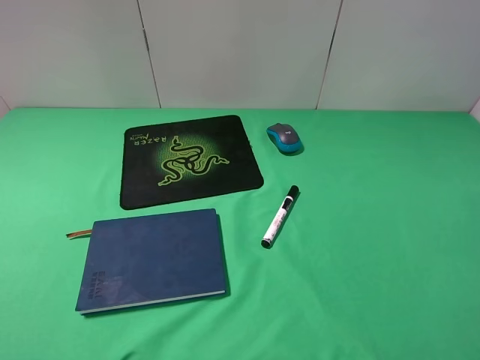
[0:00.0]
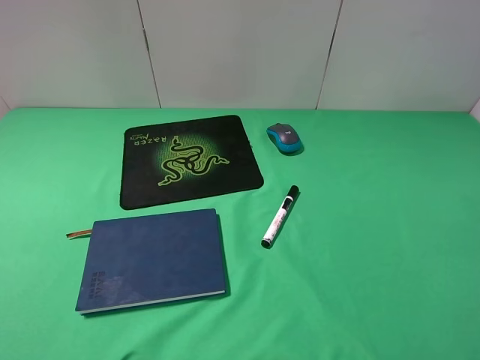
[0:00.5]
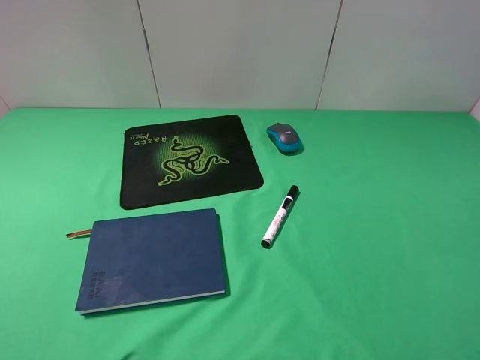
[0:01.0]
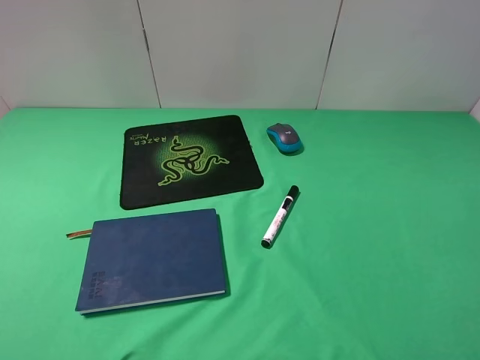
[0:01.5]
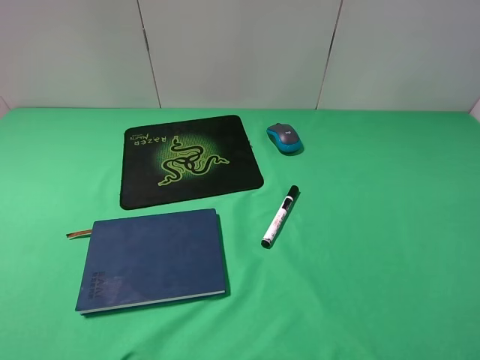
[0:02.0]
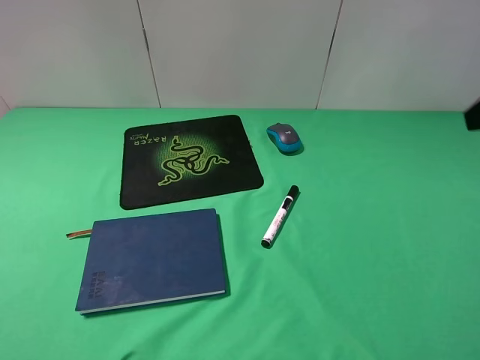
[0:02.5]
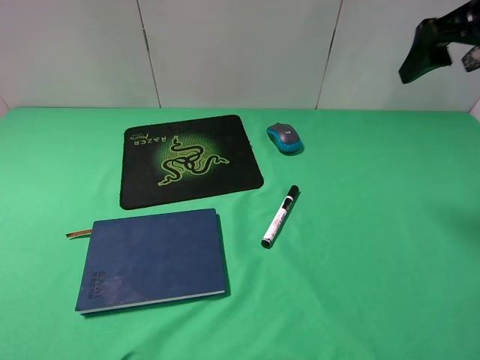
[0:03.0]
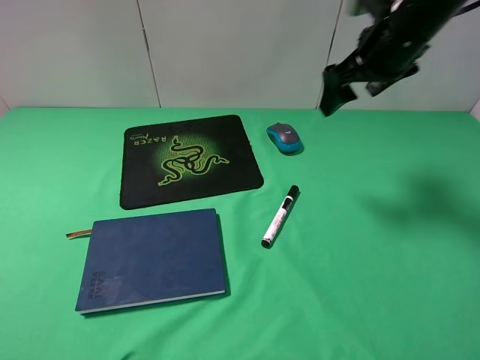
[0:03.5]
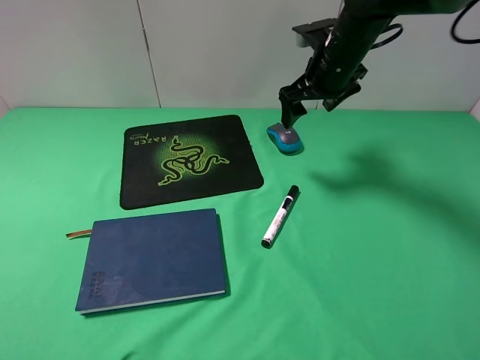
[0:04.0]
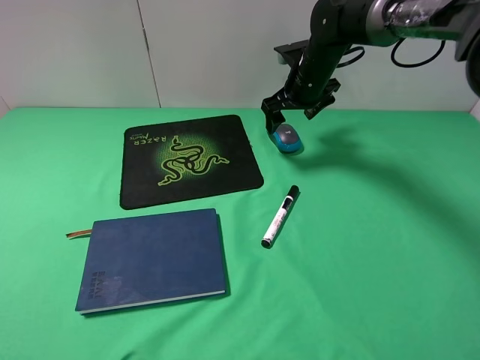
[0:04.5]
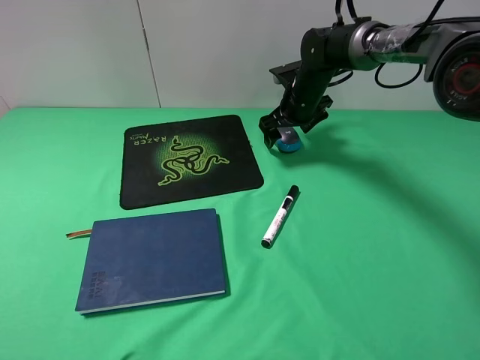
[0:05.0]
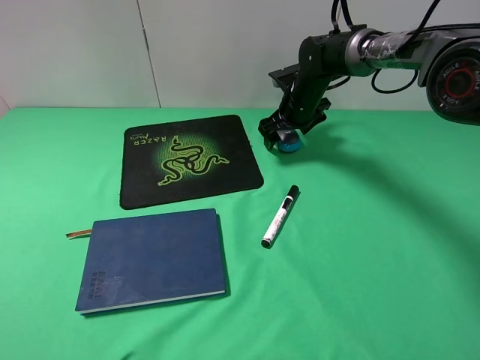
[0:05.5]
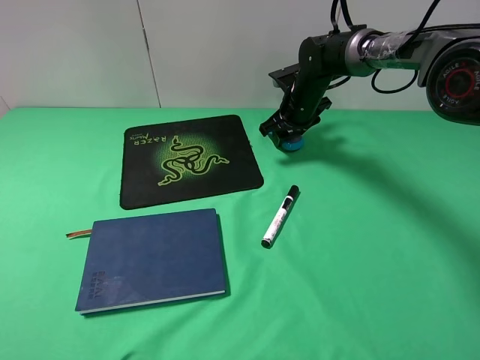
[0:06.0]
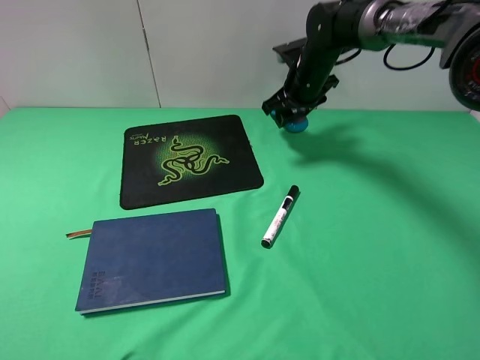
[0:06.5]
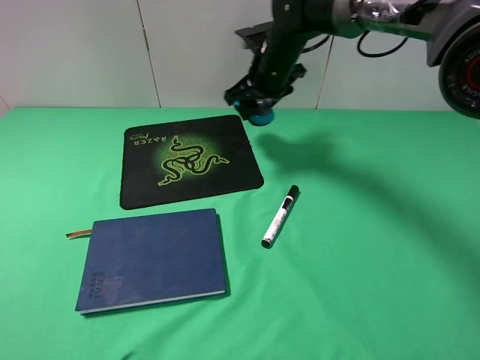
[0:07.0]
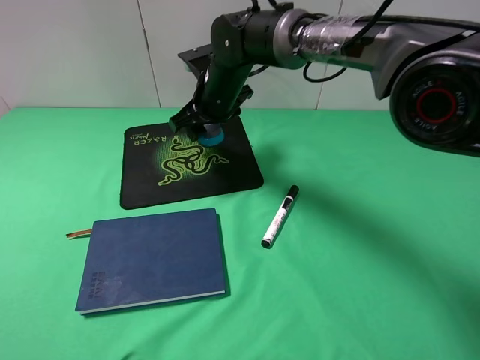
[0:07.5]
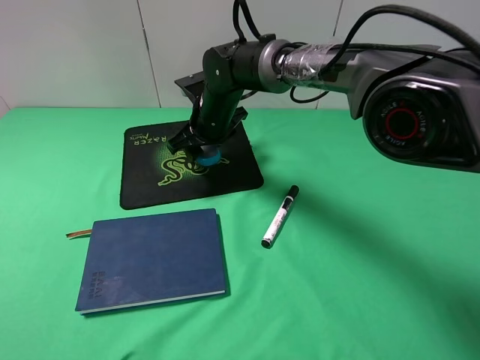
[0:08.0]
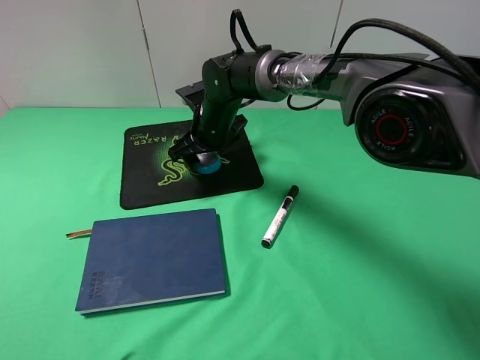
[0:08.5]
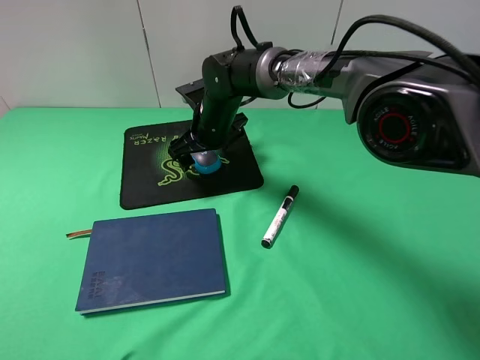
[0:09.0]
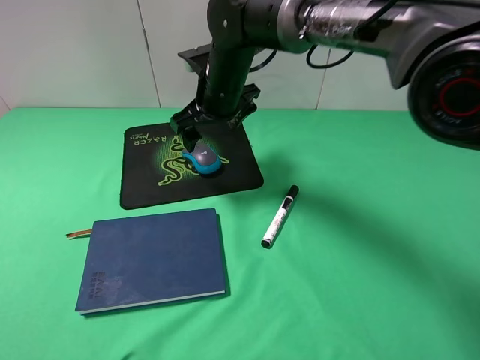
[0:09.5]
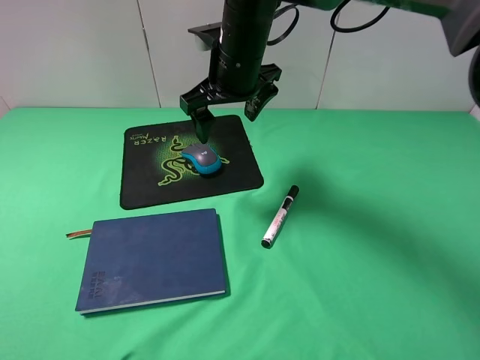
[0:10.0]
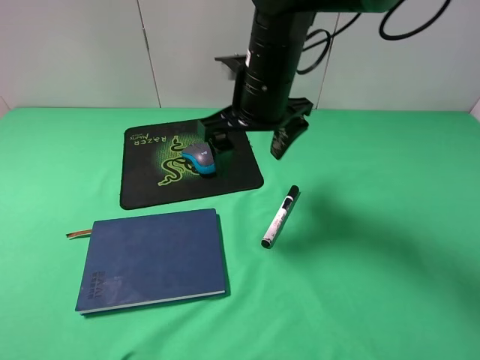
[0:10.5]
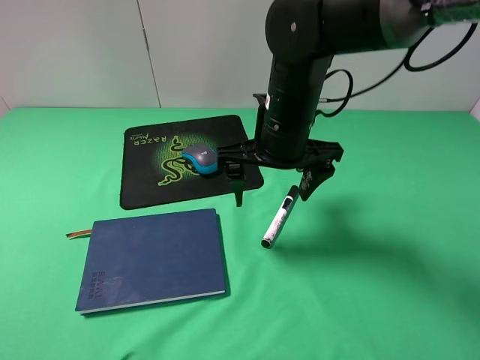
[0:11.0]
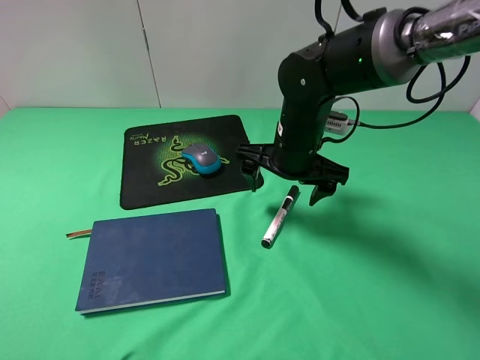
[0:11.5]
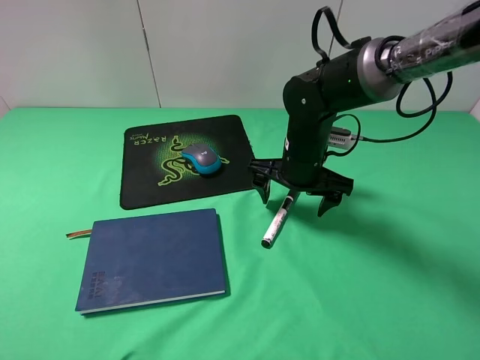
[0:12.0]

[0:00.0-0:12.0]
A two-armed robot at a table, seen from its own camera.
Step, 0:00.0 to 0:06.0: Grasp the mouse with the right gripper.
Step, 0:06.5 to 0:09.0: Place the mouse on the mouse pad with the right gripper.
0:02.0 to 0:04.0: The right gripper moves forward and to the left, some 40 cm.
0:04.0 to 0:06.0: The right gripper shifts roughly 10 cm downward and forward, and closes.
0:06.0 to 0:08.0: The right gripper moves to the left and backward, some 20 cm.
0:08.0 to 0:10.0: The right gripper travels upward by about 10 cm, and opens up.
0:10.0 to 0:12.0: The right gripper goes some 15 cm downward and to the right.

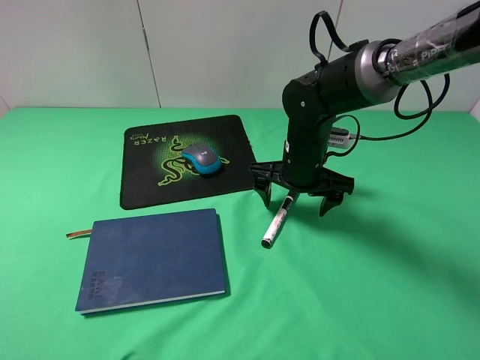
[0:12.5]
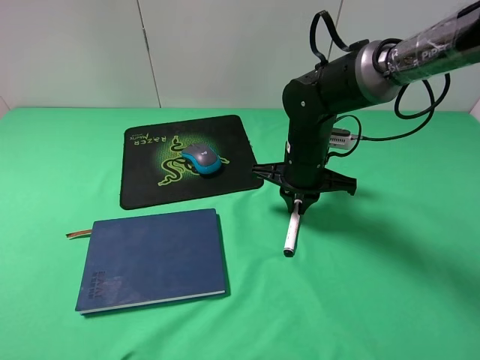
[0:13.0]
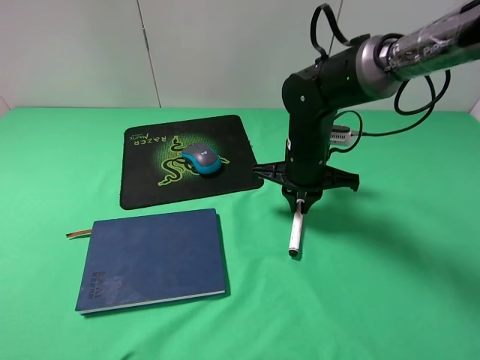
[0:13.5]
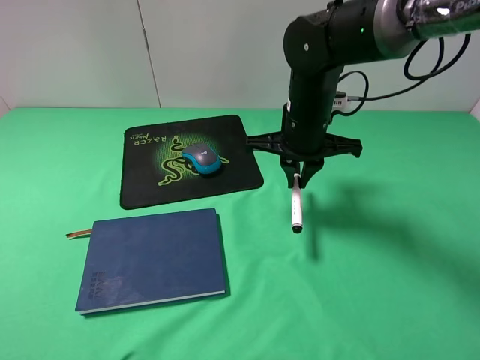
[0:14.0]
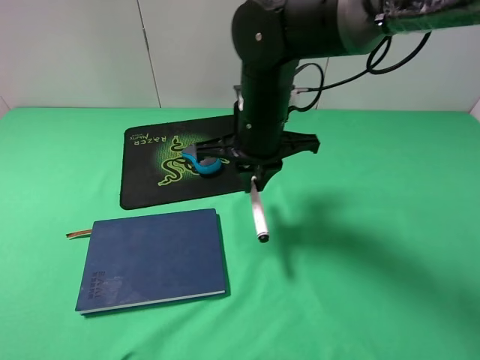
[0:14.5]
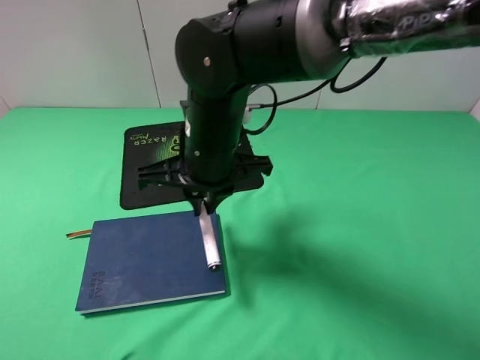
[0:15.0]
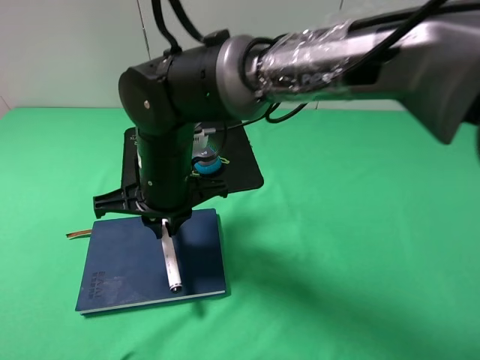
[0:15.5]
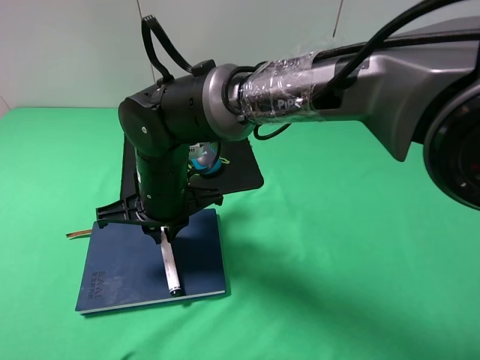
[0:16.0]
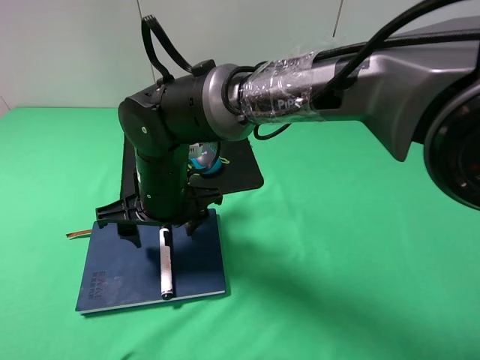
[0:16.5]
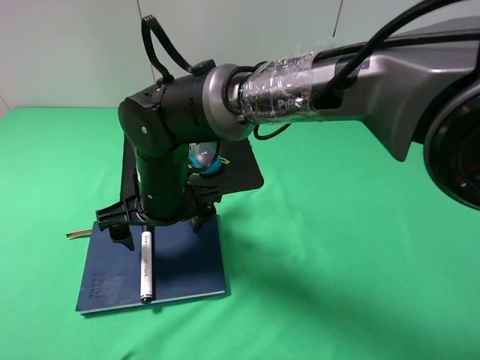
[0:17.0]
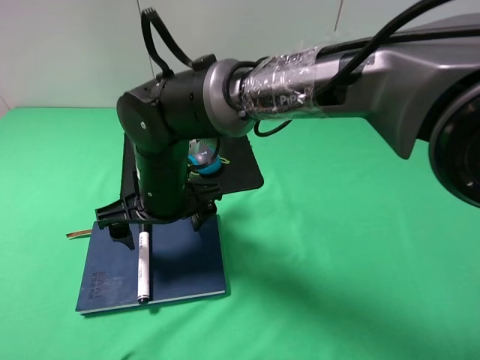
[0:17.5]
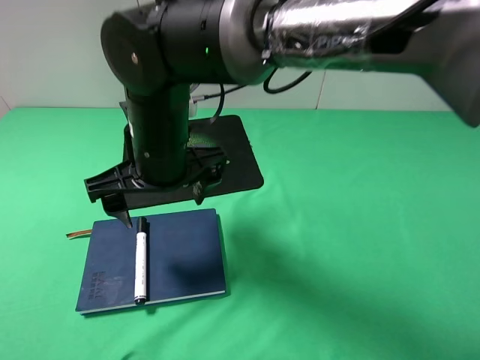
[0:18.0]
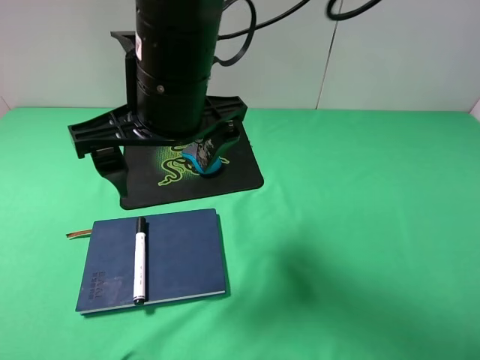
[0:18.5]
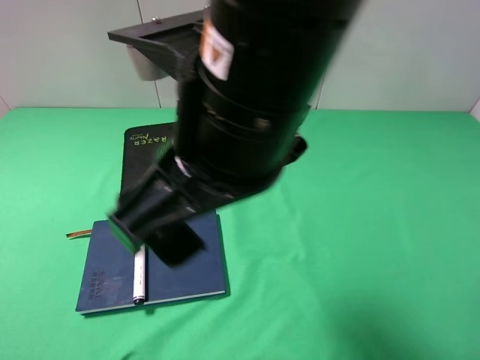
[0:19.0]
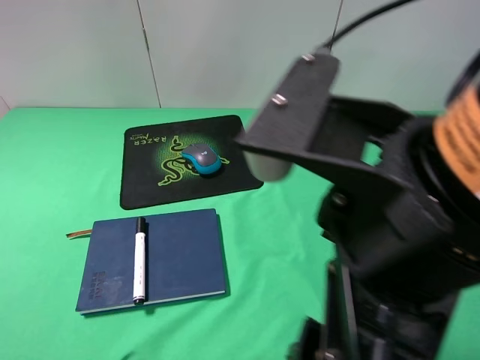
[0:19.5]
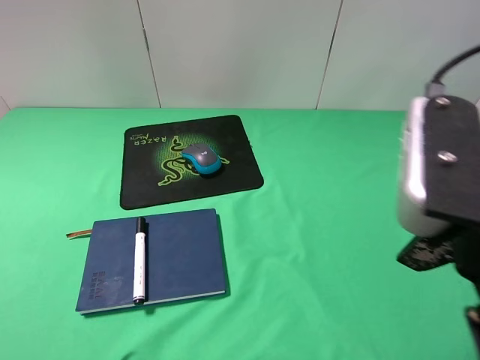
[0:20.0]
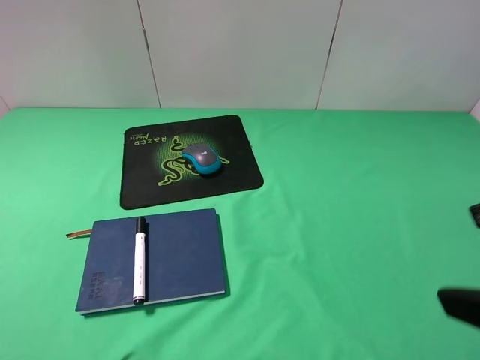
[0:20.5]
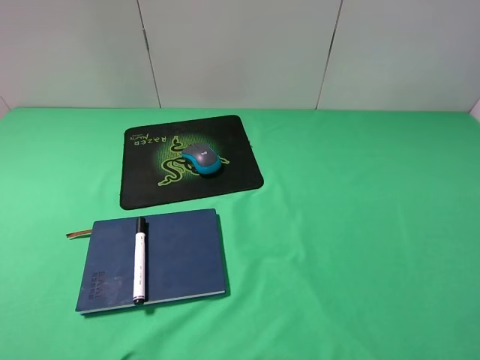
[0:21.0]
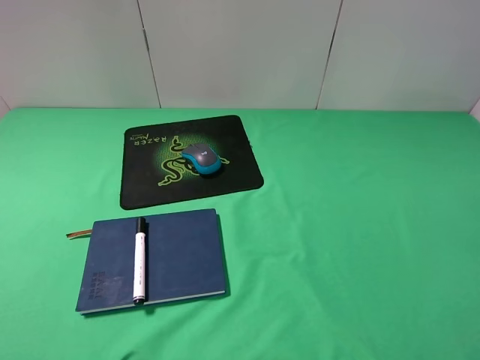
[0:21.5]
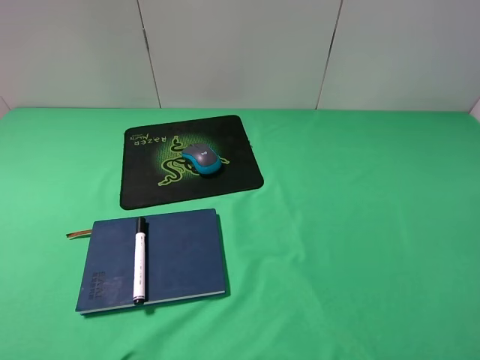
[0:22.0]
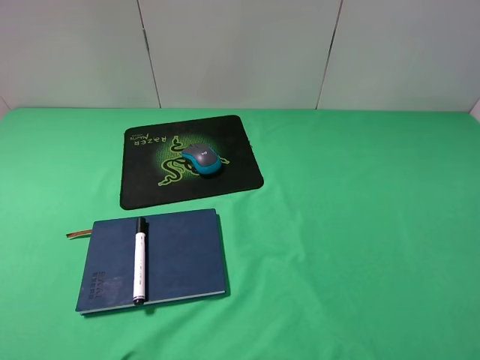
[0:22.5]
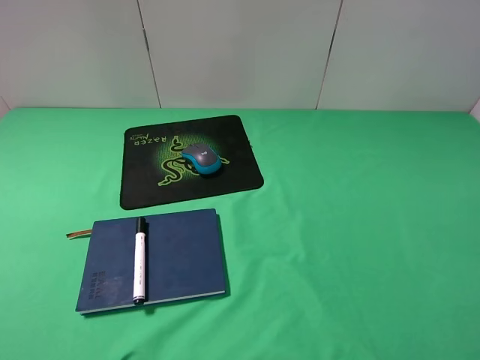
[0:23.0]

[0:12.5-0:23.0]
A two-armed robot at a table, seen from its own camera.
Step, 0:14.0 to 0:16.5: Place the marker on the notebook with the right gripper.
0:12.5 to 0:14.5: The right gripper goes about 10 cm upward and to the left, and closes up.
0:14.5 to 0:16.5: The right gripper heads to the left and downward, covering about 15 cm, and opens up.
0:16.5 to 0:19.0: The right gripper moves upward, backward and to the right, about 25 cm.
0:19.0 to 0:21.0: The right gripper is displaced to the right by some 30 cm.
